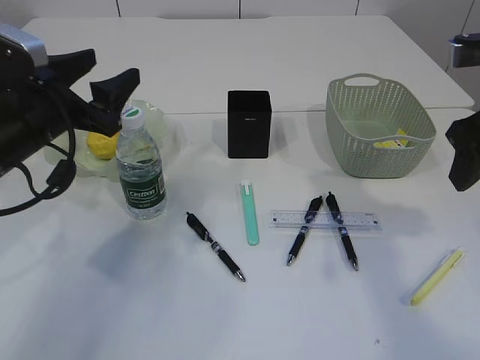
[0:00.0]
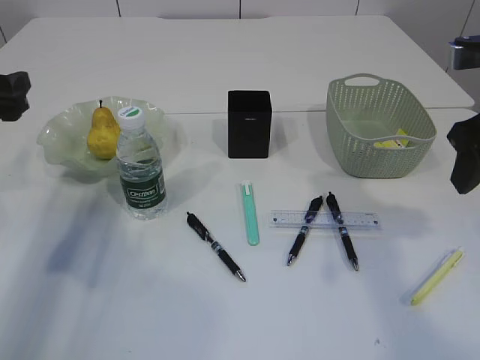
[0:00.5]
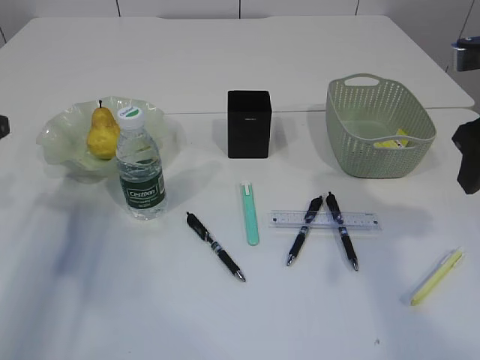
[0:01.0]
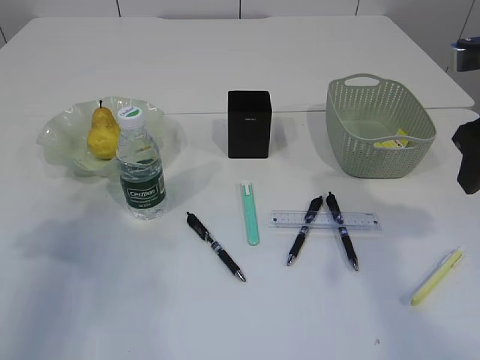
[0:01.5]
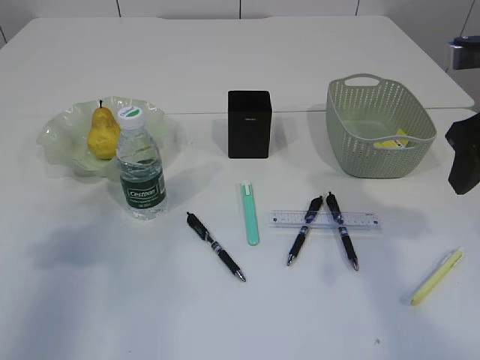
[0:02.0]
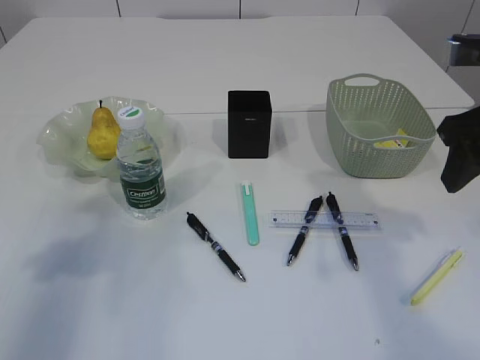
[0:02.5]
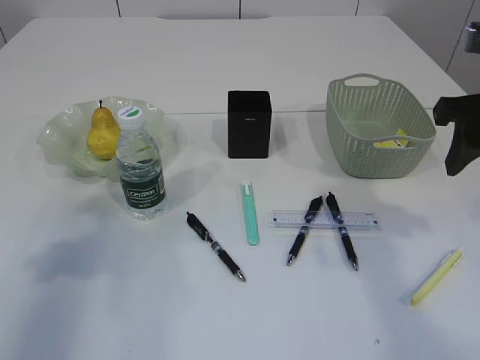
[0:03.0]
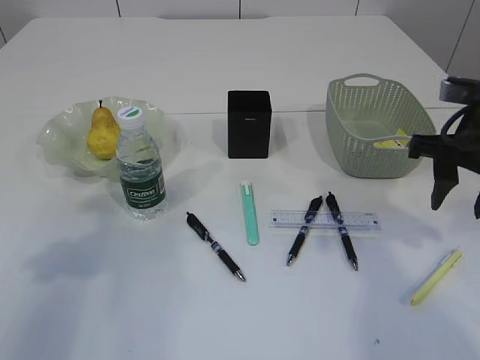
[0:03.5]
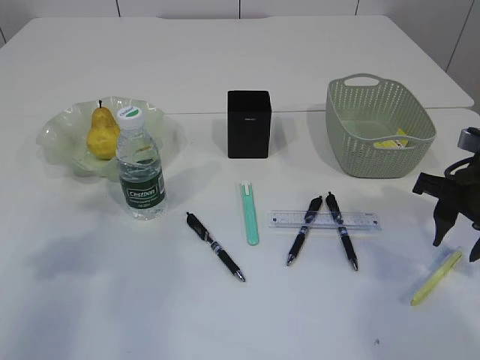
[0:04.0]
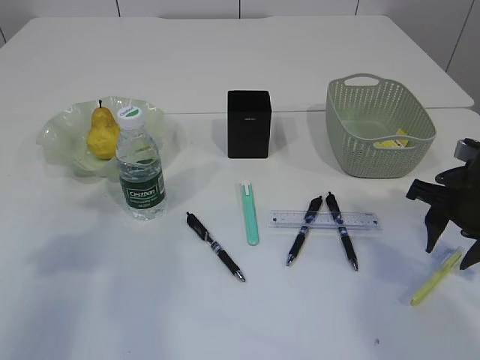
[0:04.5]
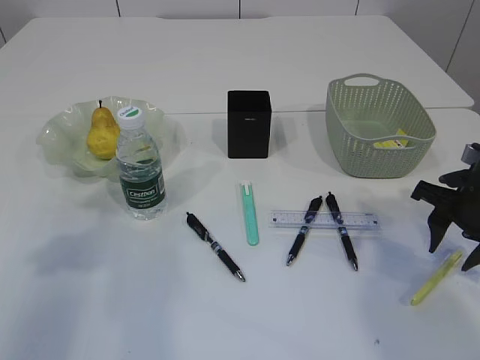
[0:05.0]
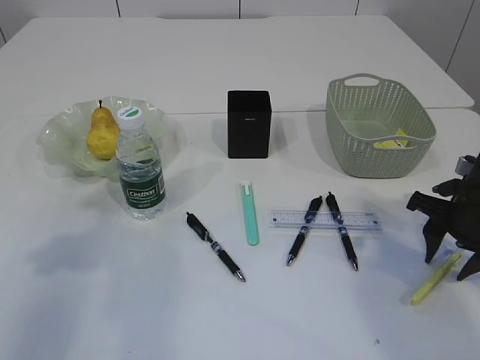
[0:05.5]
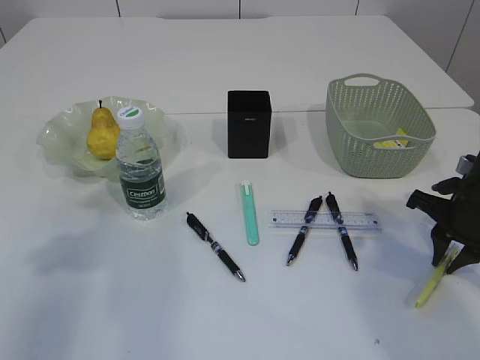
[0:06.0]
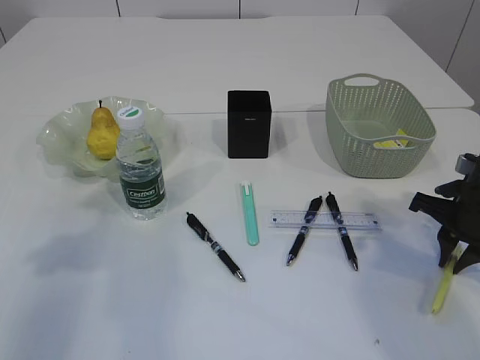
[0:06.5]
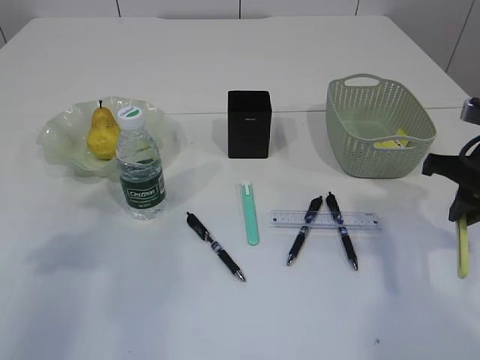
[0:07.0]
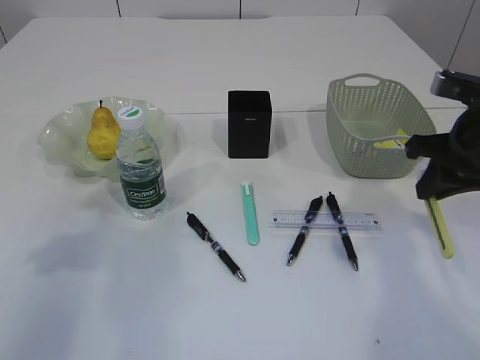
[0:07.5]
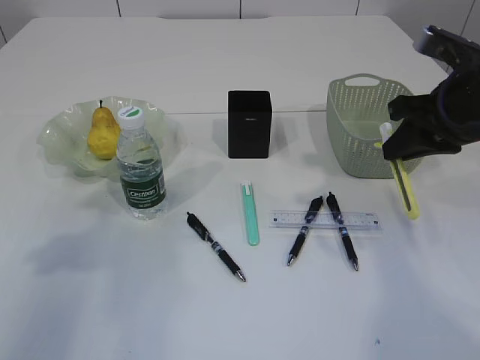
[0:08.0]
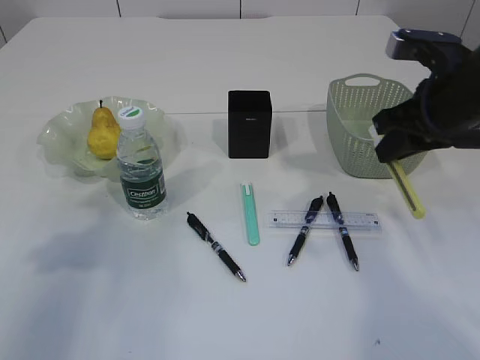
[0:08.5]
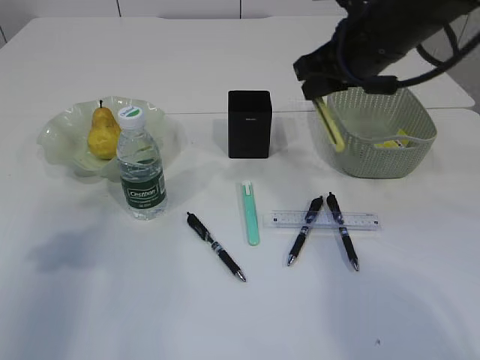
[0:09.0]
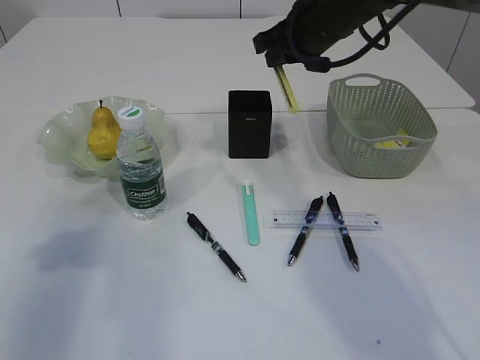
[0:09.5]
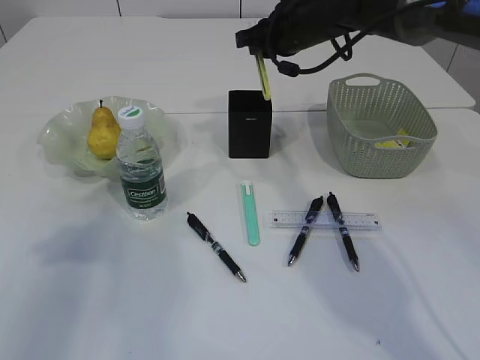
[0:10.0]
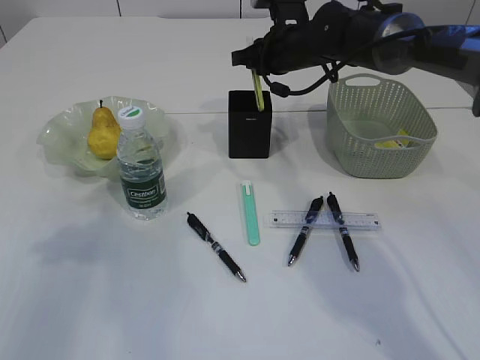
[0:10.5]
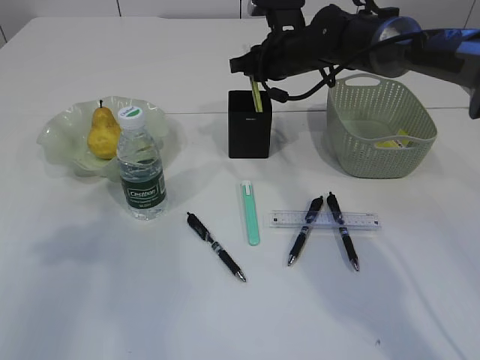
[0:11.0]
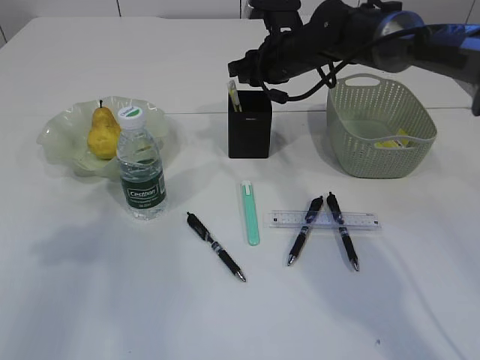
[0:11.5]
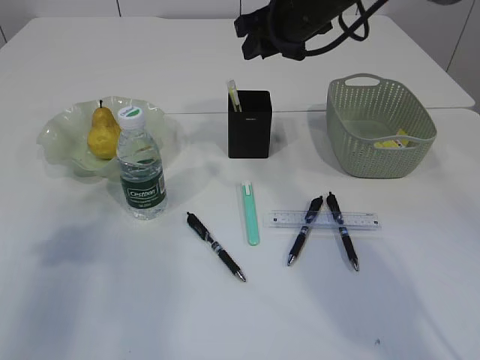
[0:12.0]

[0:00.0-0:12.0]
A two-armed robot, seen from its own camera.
Step, 0:00.5 to 0:07.0: pick up the yellow knife.
Step, 0:07.5 to 0:12.0: place the yellow knife into the pen holder.
0:00.0 to 0:02.0: The left gripper shifts some 15 cm to the left, backward and upward.
0:02.0 to 0:04.0: The right gripper shifts approximately 10 cm downward.
0:04.0 to 0:06.0: The right gripper changes place by approximately 5 cm, and closes its fingers.
0:06.0 to 0:08.0: The right gripper heads upward, covering approximately 10 cm.
0:08.0 to 0:10.0: The right gripper is displaced forward and to the left by roughly 25 cm.
0:10.0 to 0:12.0: The right gripper changes place by about 5 cm.

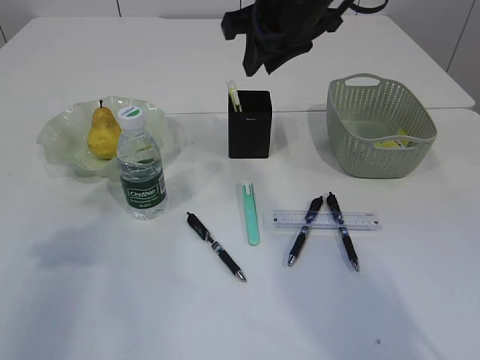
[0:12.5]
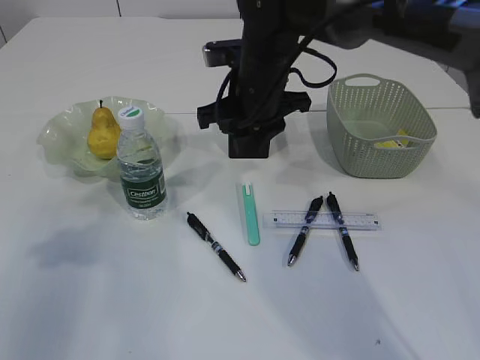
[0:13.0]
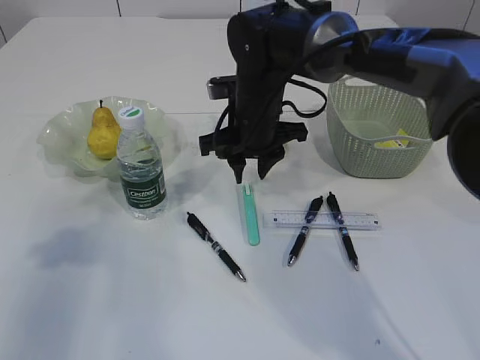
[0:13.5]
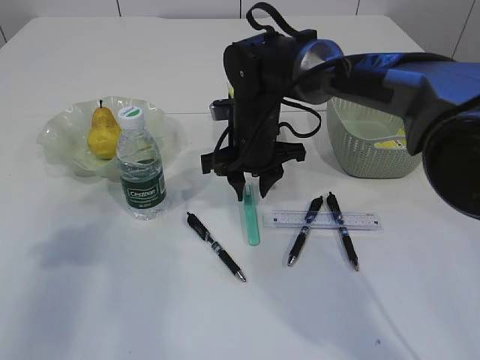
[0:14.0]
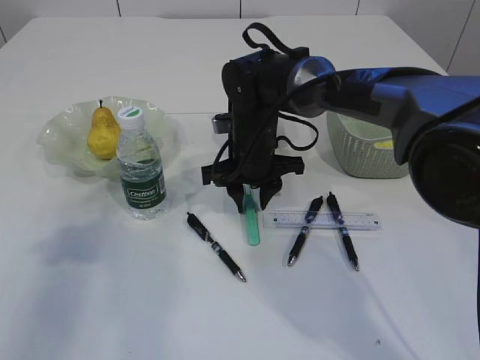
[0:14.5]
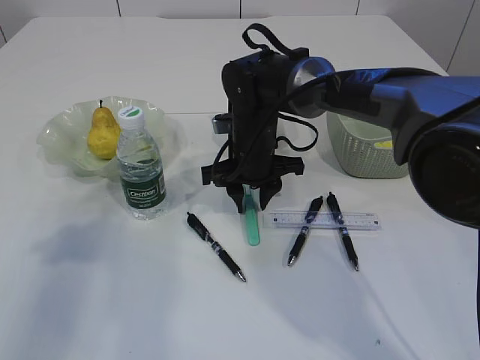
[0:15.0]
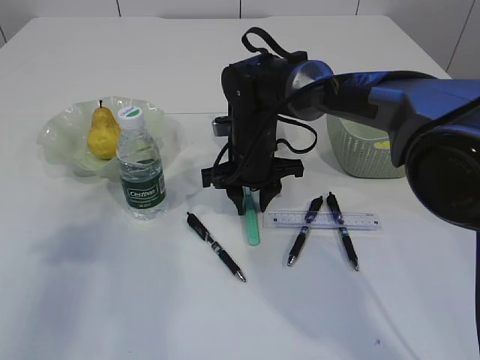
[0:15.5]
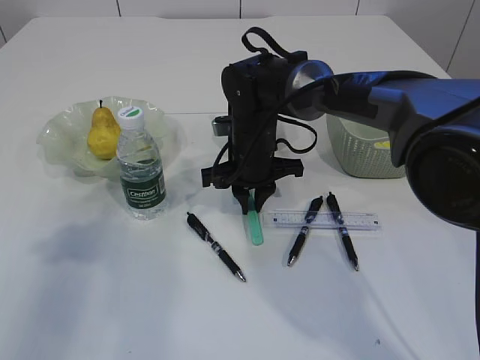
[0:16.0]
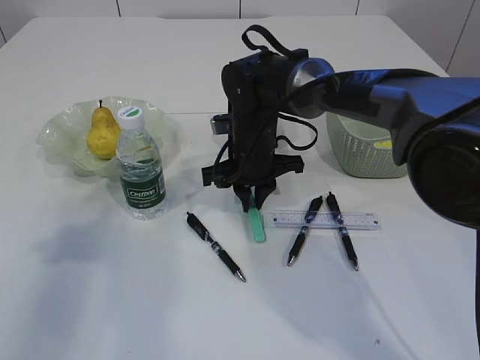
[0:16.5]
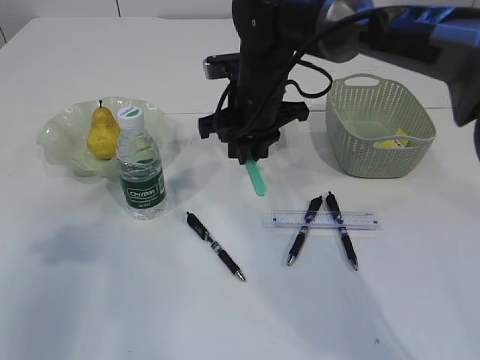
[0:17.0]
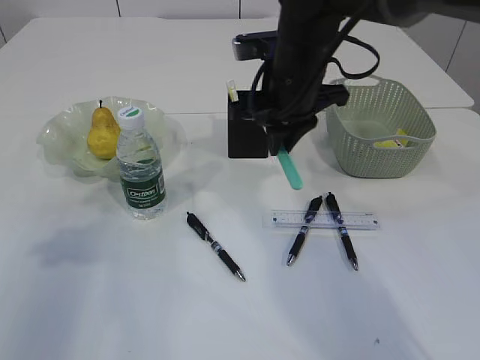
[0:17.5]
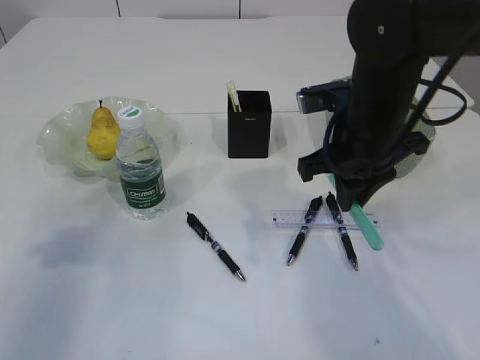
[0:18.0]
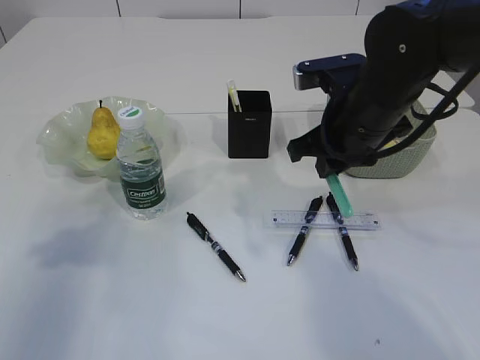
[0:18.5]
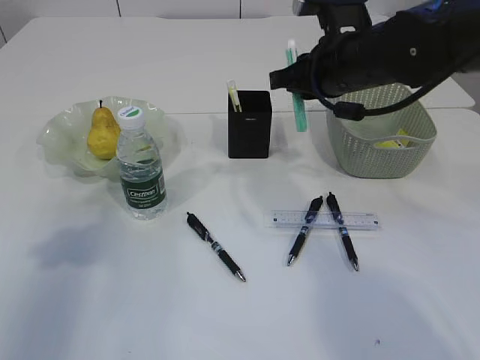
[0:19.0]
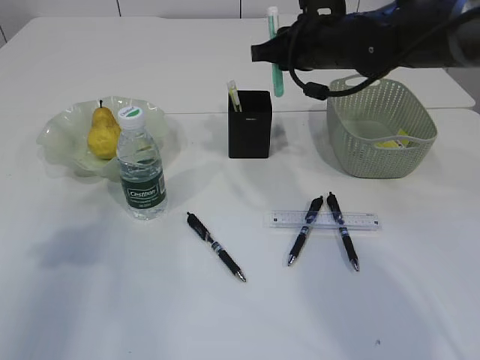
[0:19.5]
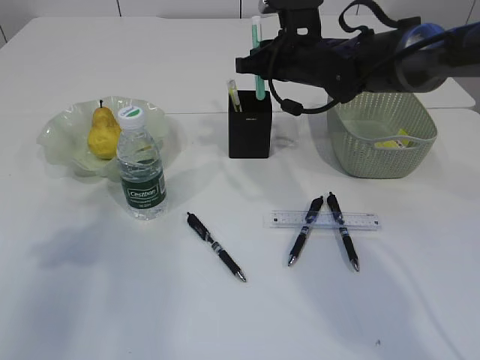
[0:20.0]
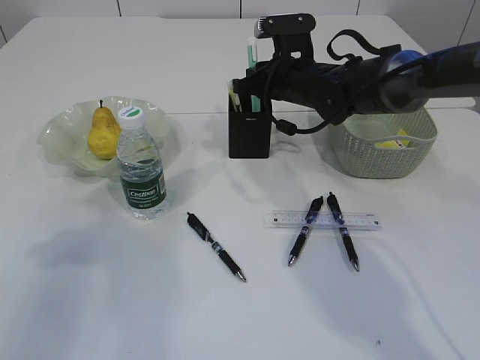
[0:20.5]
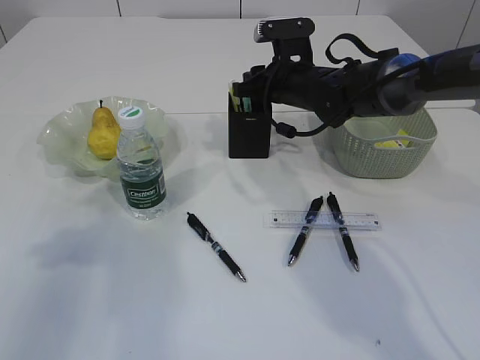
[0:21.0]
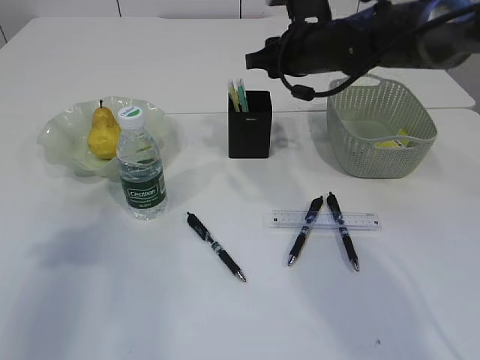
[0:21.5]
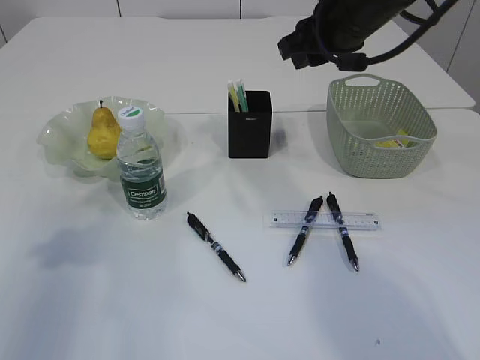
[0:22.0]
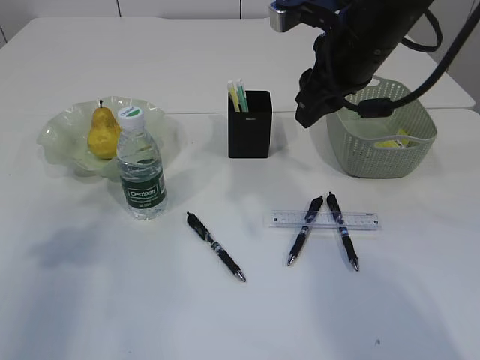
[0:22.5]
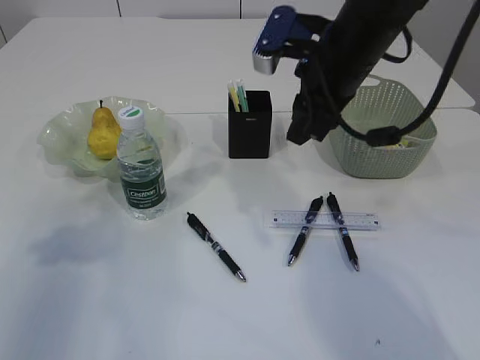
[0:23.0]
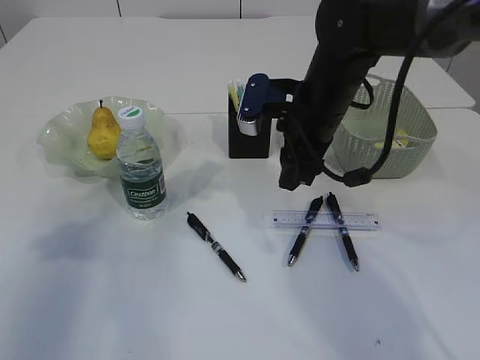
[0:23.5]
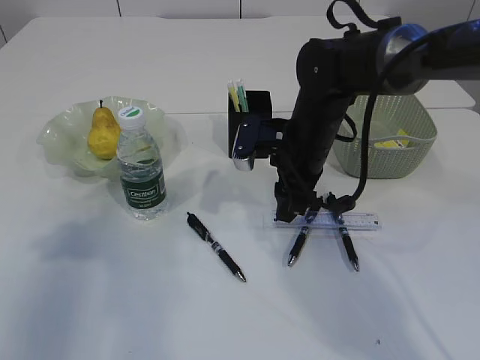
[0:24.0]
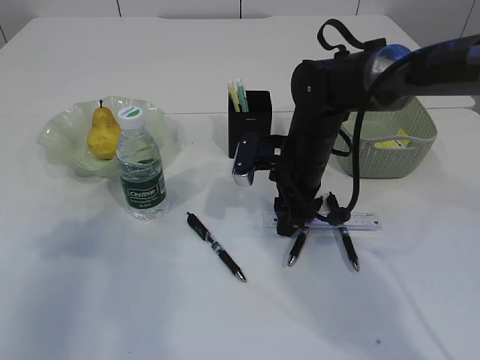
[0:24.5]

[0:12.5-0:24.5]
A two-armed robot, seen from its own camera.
Step, 0:12.5 to 0:17.0: pick up the blue knife.
Step, 0:17.5 to 0:22.0: Place the blue knife into the pen holder.
0:12.5 to 0:14.5: The right gripper heads downward, covering about 20 cm.
0:14.5 to 0:16.5: The right gripper closes.
0:16.5 to 0:18.5: The right gripper heads to the right, upward and backward, covering some 15 cm.
0:18.5 to 0:20.5: The right gripper is displaced forward by about 15 cm.
0:20.5 to 0:22.5: The right gripper moves backward and upward, about 15 cm, and opens.
0:22.5 to 0:24.5: The right gripper moves downward, approximately 15 cm.

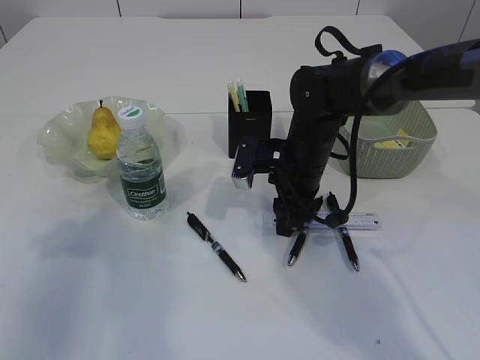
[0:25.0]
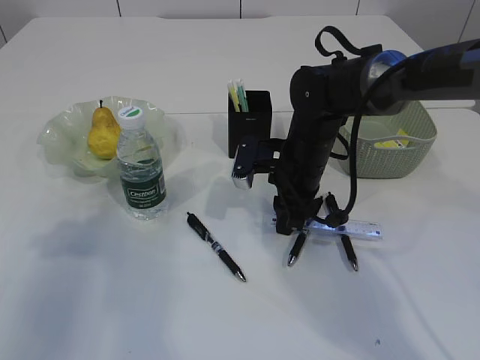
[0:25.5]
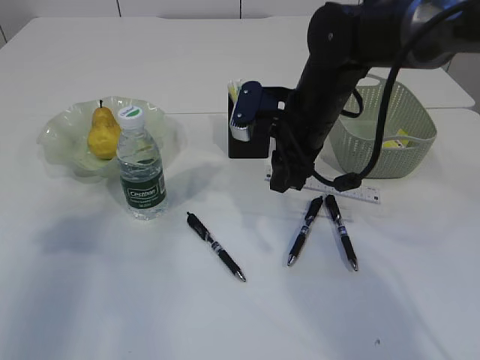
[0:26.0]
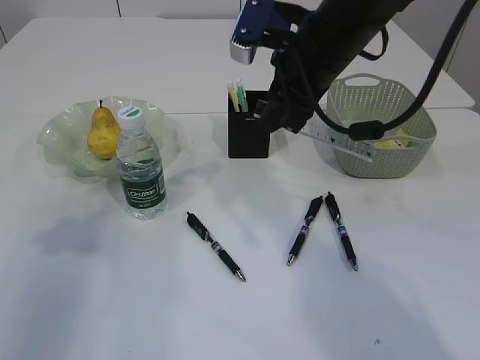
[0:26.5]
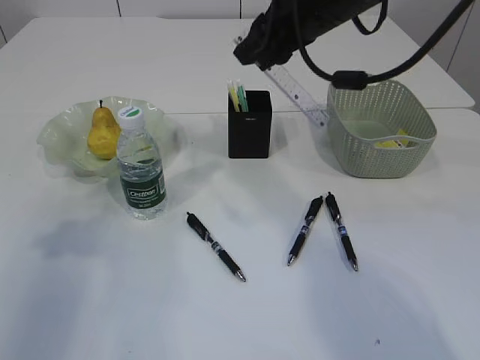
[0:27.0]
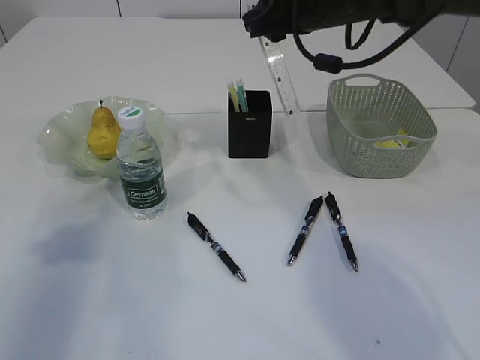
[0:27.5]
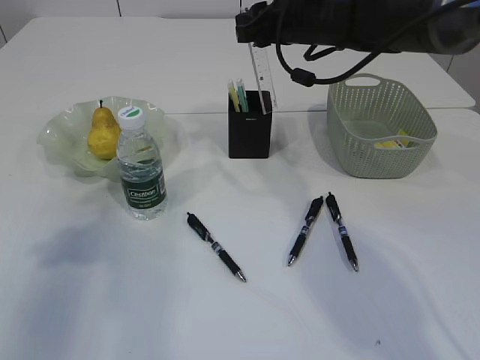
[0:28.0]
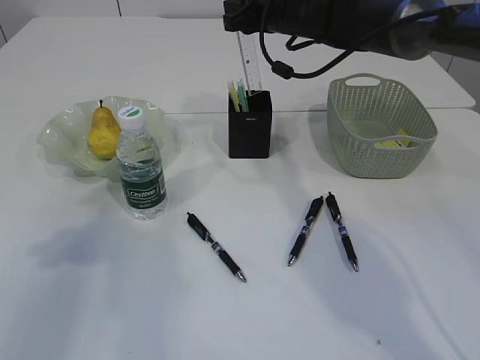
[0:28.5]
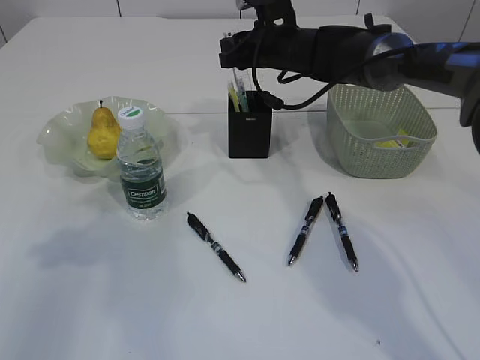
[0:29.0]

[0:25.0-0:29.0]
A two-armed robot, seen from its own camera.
0:25.0 to 0:27.0: The right gripper heads upward, covering approximately 20 cm.
0:27.0 to 0:29.0: The right gripper goes approximately 15 cm forward and downward.
